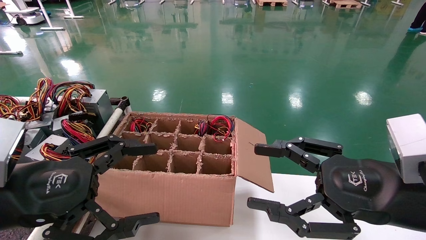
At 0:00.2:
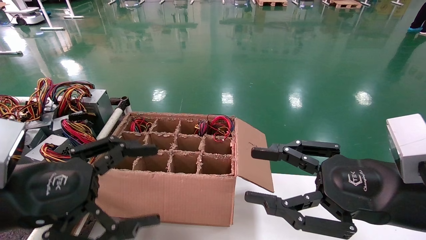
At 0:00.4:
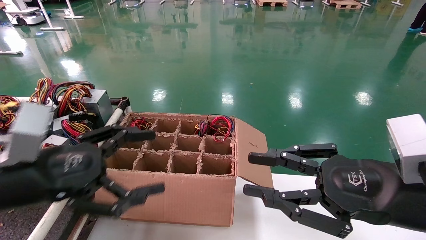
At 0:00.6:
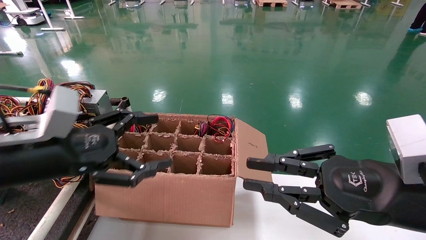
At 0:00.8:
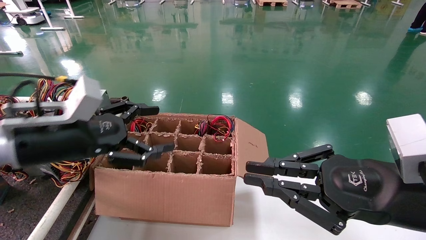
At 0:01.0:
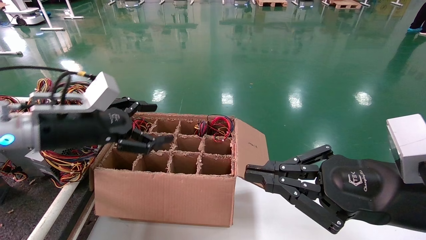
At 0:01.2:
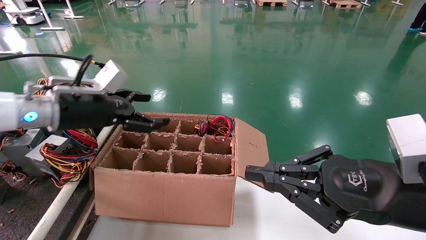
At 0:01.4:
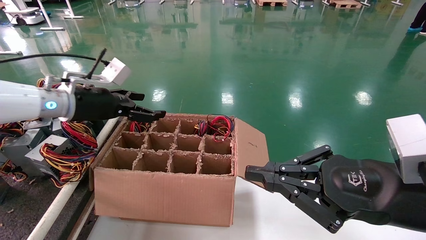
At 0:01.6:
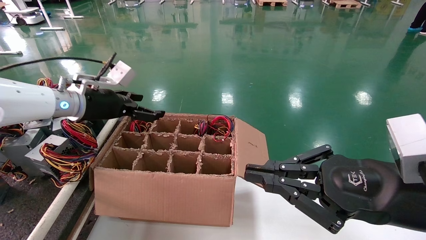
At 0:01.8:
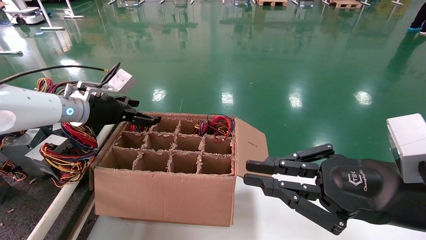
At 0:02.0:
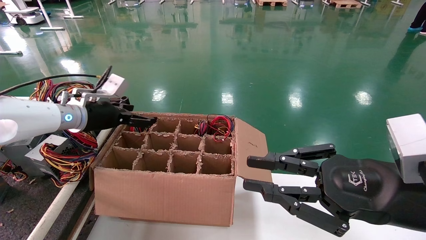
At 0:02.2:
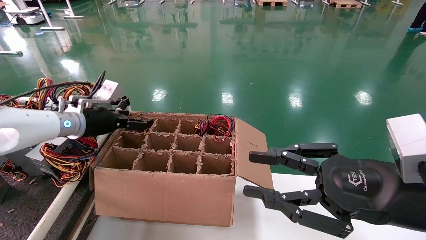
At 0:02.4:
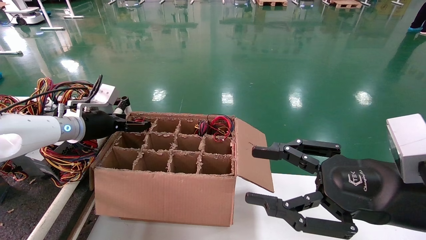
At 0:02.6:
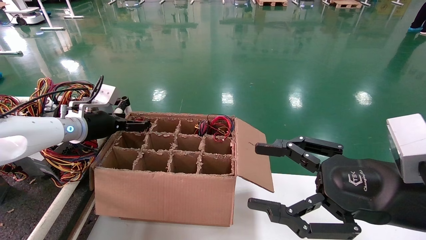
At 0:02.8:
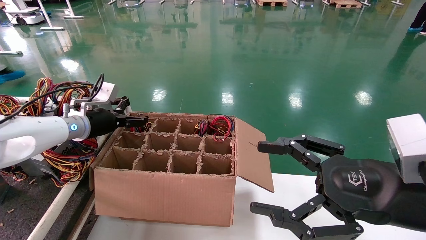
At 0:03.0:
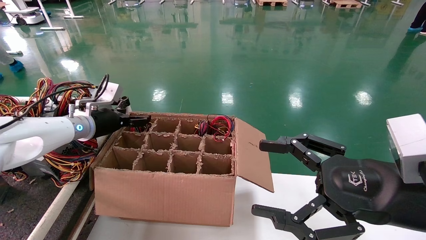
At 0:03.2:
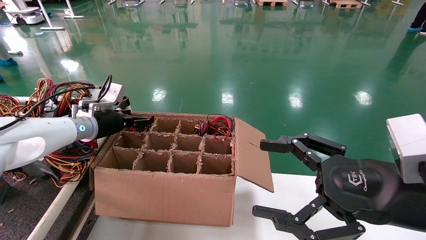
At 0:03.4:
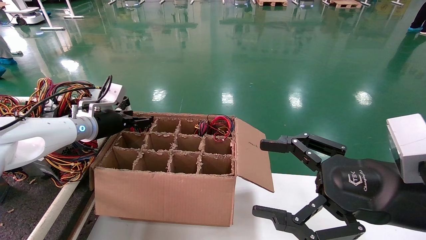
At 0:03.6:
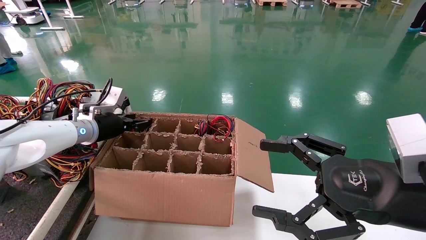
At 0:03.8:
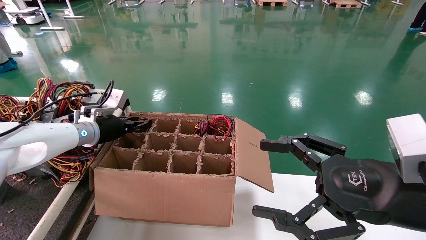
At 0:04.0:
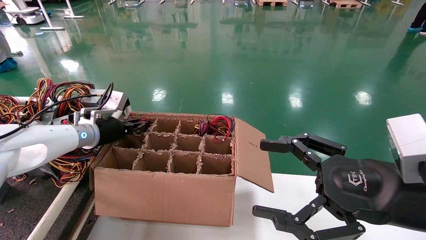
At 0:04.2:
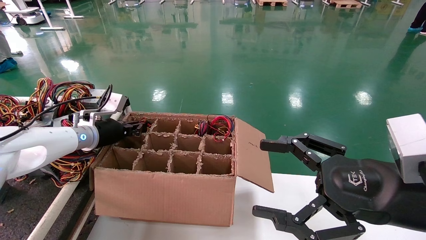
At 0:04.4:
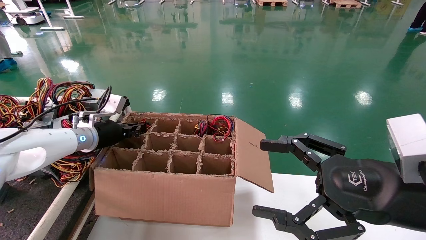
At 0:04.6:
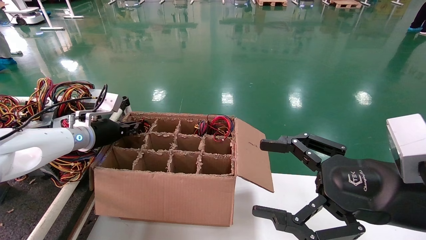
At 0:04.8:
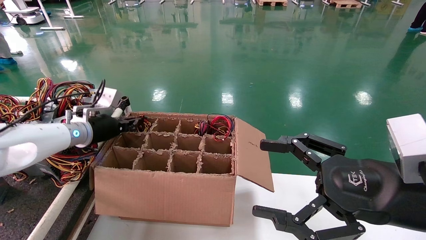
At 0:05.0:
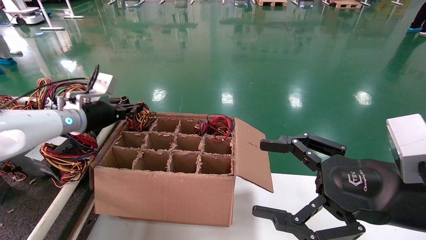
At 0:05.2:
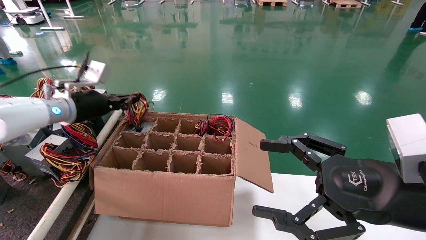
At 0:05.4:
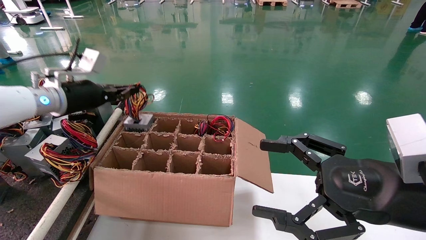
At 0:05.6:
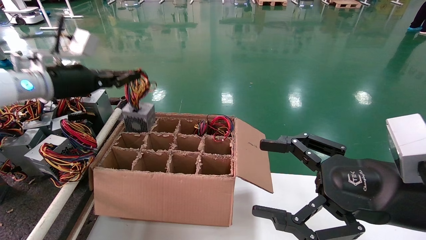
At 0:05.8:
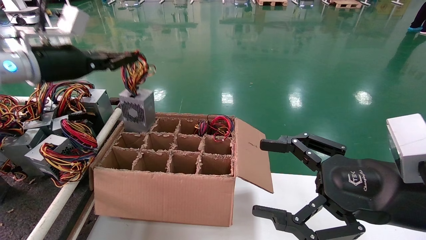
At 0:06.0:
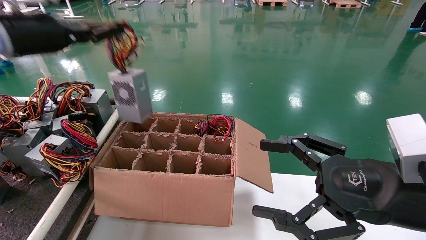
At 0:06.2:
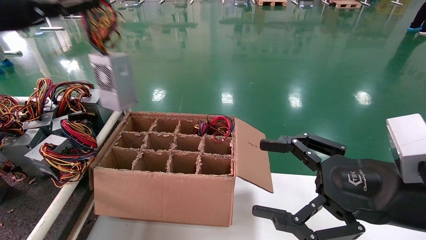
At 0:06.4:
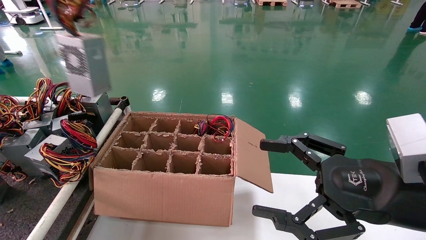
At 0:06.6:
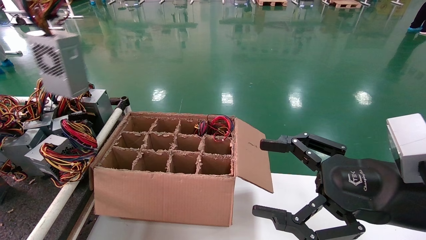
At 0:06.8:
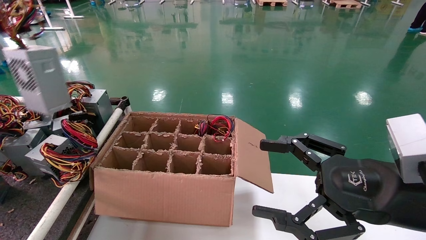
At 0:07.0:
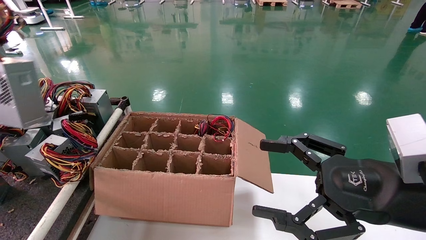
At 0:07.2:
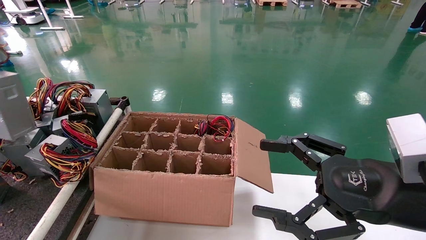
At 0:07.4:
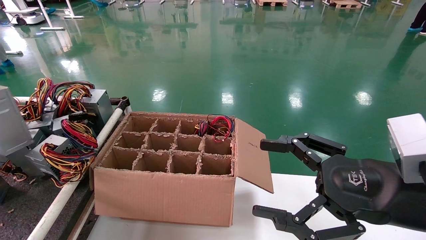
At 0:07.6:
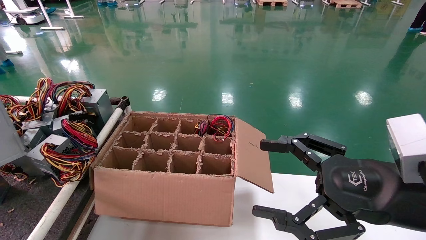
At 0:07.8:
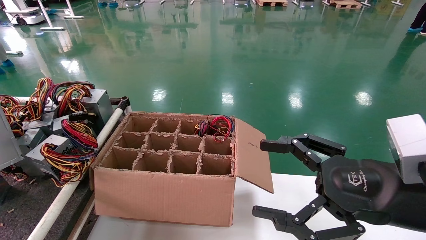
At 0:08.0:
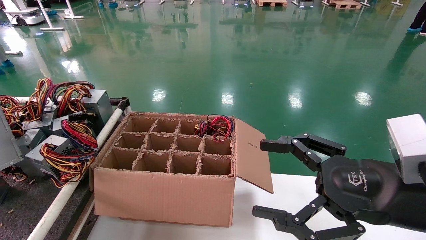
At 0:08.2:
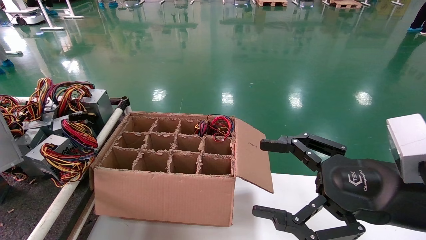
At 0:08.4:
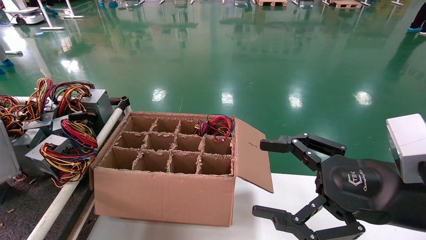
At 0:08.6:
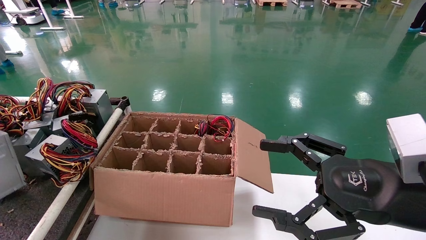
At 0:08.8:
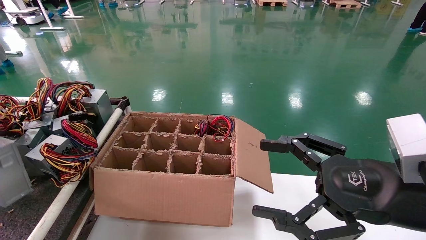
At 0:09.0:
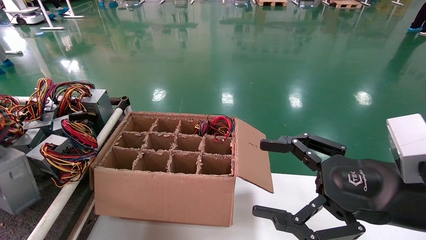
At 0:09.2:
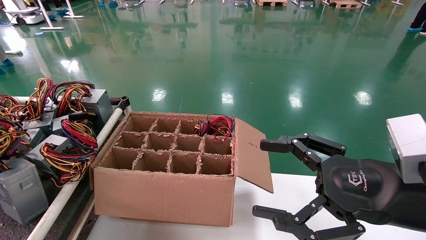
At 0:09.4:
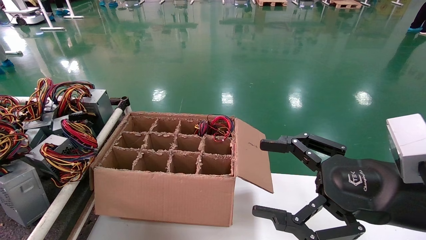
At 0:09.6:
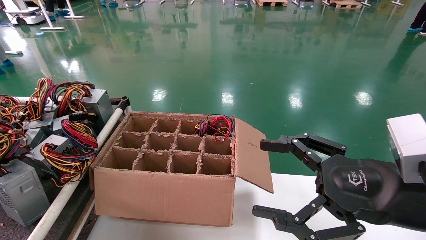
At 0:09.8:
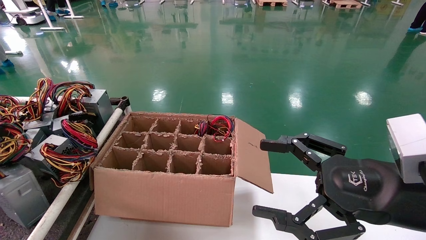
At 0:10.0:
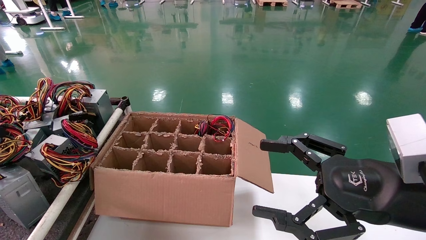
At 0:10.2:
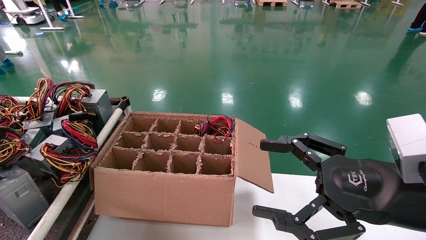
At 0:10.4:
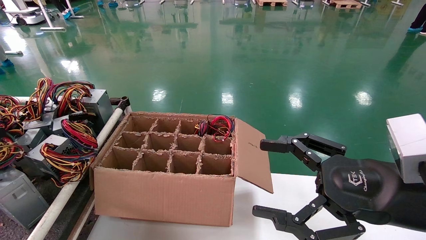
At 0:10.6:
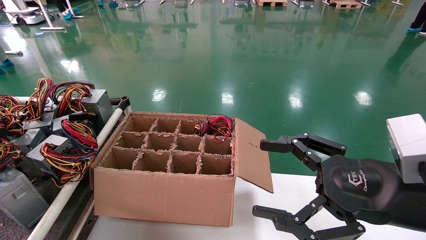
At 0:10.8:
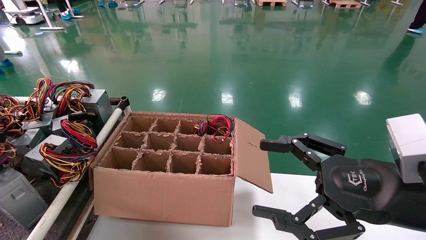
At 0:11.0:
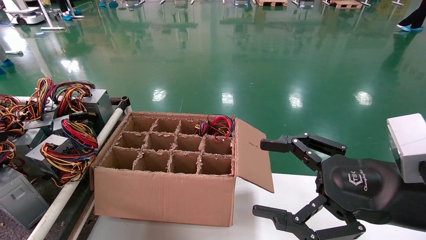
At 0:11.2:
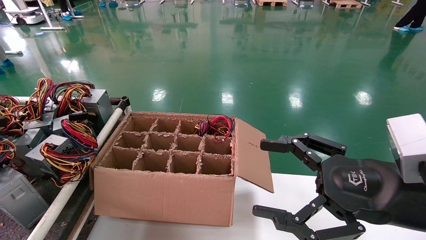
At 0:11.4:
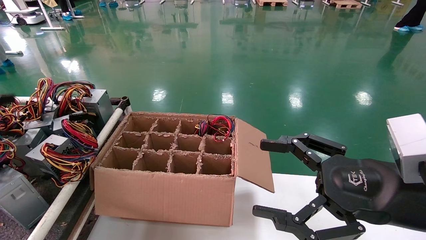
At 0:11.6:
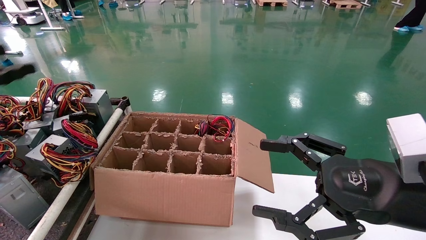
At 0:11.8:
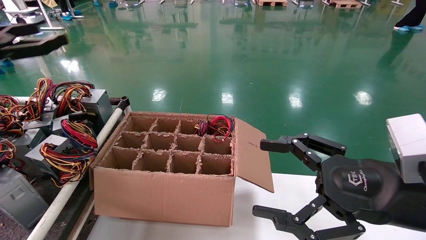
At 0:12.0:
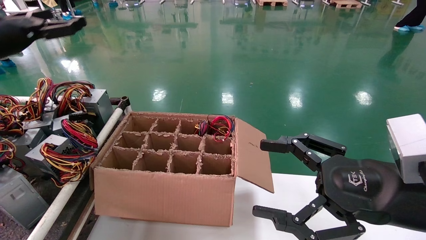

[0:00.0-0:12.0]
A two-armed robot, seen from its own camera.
Step, 0:01.0 to 0:04.6: Grab and lift the power supply from the large box.
Step, 0:04.8 to 0:11.6: Place the power supply on the operating table.
0:00.0 to 0:01.6: The right gripper closes up; the left gripper shifts roughly 25 cm forward.
0:01.6 to 0:03.0: The left gripper moves downward, about 5 cm. Meanwhile the right gripper opens its fingers.
0:03.0 to 0:04.4: The left gripper closes up.
0:04.4 to 0:06.0: The left gripper shifts about 25 cm upward and backward.
0:06.0 to 0:07.6: The left gripper heads to the left and backward, covering roughly 30 cm.
0:07.6 to 0:09.0: The left gripper heads downward, covering some 10 cm.
0:09.0 to 0:10.4: There are only small adjustments of the grippers.
0:10.4 to 0:12.0: The left gripper is displaced forward, upward and to the right by approximately 25 cm, and opens.

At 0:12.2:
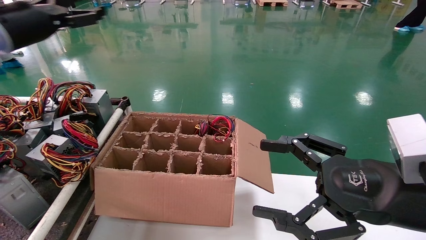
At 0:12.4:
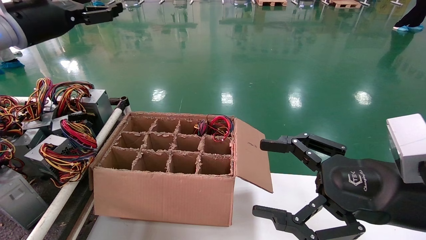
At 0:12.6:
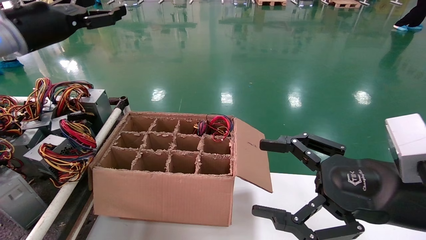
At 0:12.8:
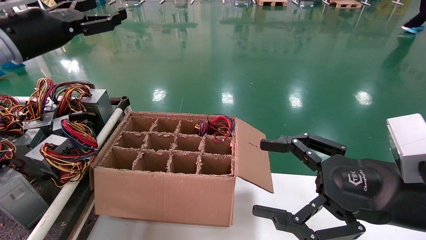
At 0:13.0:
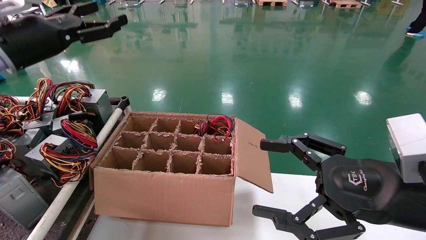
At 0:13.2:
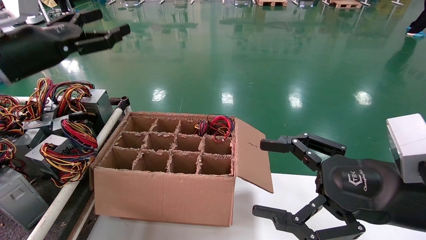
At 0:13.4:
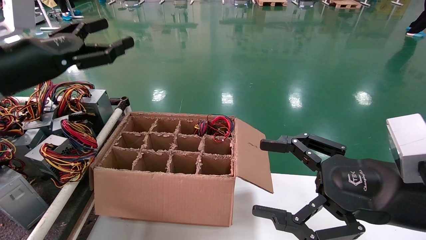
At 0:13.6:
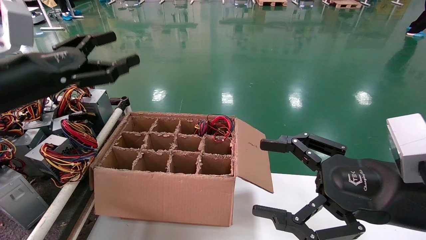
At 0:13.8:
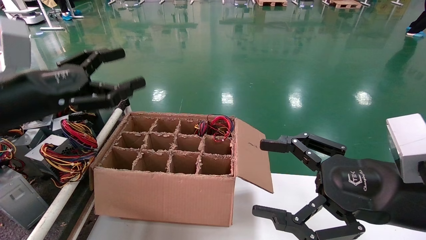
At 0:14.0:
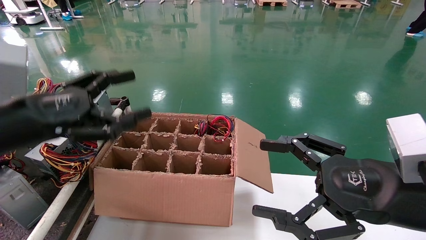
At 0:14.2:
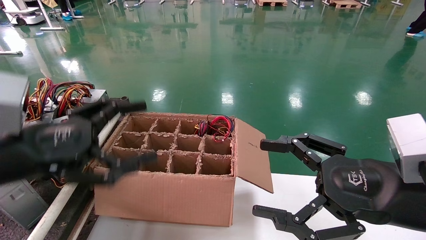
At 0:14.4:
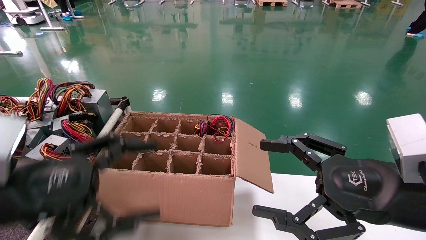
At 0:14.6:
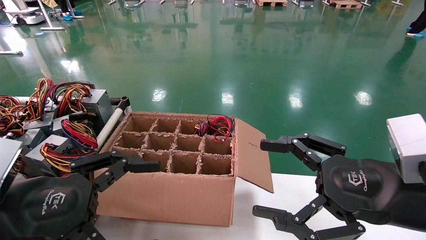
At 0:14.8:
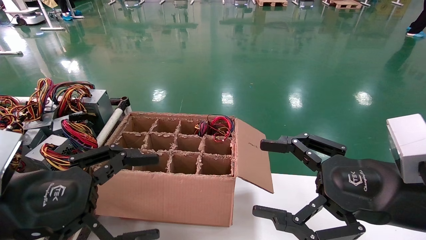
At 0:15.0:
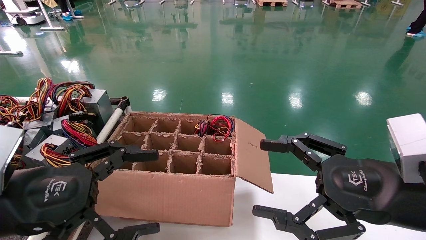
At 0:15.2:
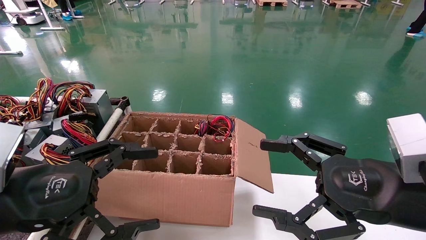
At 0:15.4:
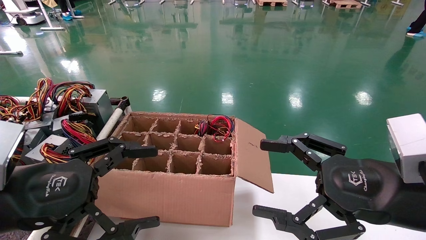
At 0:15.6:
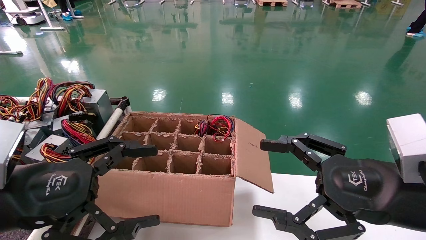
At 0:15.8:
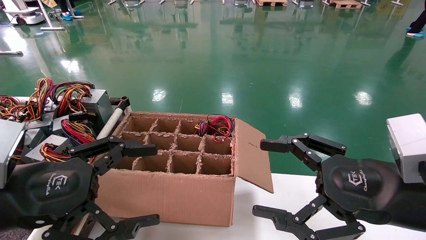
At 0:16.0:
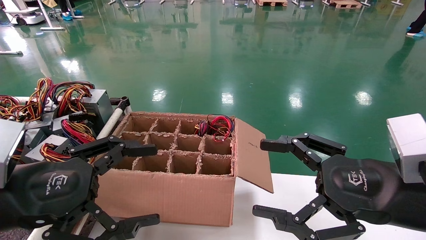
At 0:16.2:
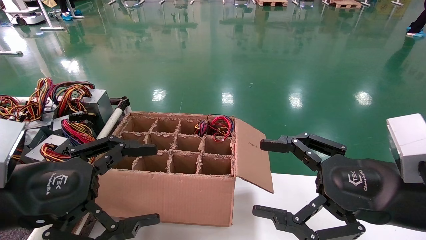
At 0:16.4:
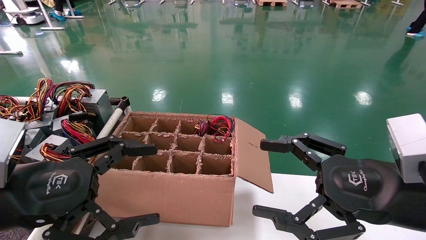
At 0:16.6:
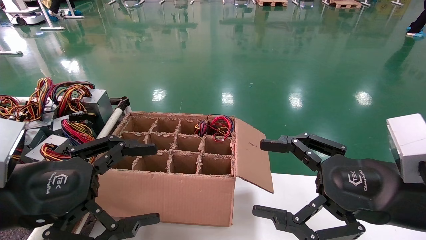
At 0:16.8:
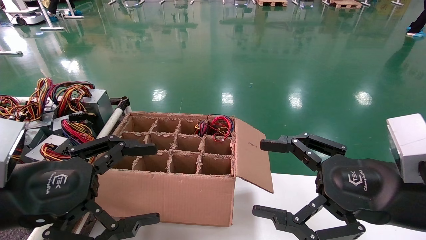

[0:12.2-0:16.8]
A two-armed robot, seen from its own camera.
0:12.2 to 0:13.8: The left gripper moves backward, downward and to the right, roughly 20 cm.
0:13.8 to 0:15.2: The left gripper shifts roughly 10 cm backward and downward.
0:15.2 to 0:16.8: Both grippers stay about where they are.
